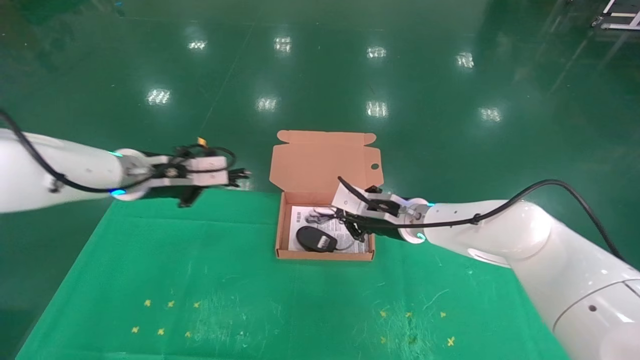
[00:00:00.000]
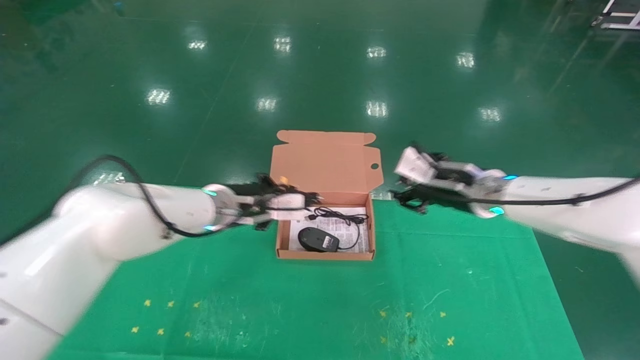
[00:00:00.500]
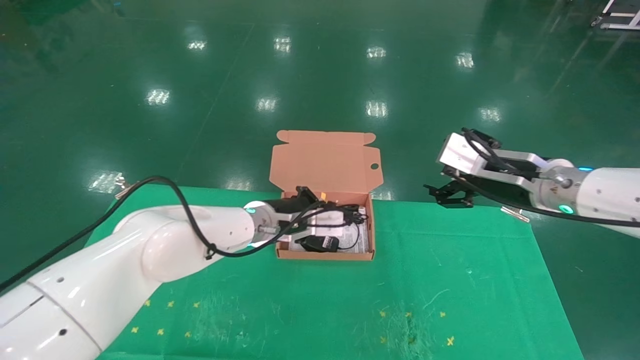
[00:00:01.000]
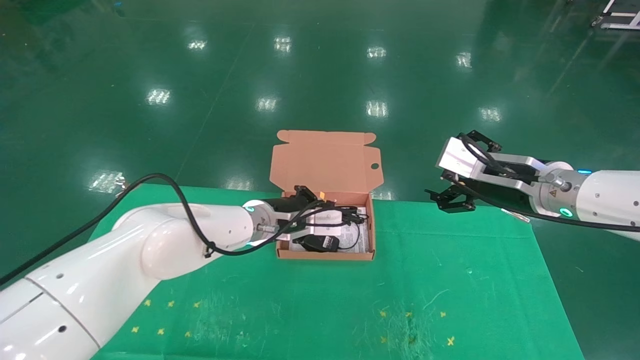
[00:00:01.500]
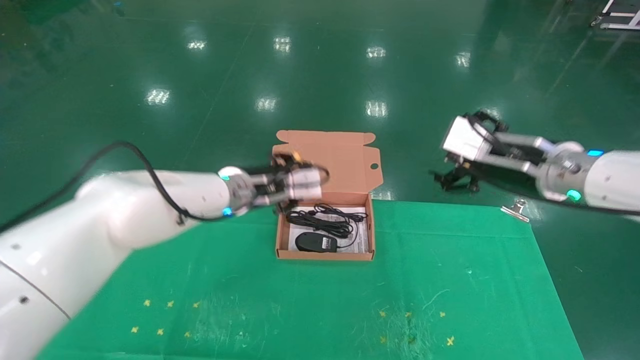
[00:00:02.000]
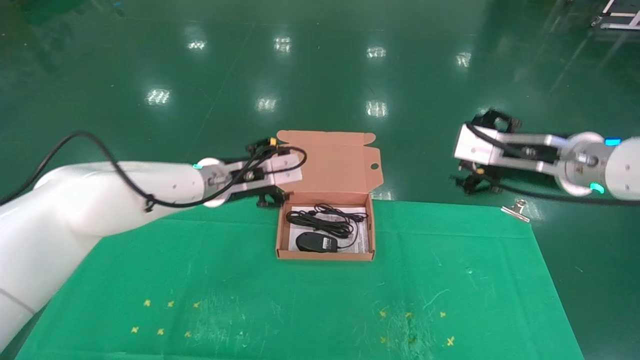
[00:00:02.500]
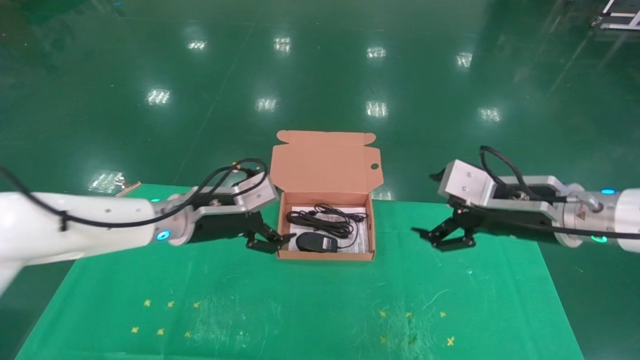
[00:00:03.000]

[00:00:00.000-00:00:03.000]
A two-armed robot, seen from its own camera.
Task of the whole recording: grasp data cable left put into box grasp mouse right put into box.
Step, 00:00:00.000 to 00:00:02.000: Place the mouse and power cord into the box.
00:00:00.000 to 00:00:01.500: The right gripper is displaced to the right, backward and upward by approximately 20 cm, and opens its fingers. The left gripper travels to the right and downward by approximately 20 cm.
00:00:01.500 to 00:00:03.000: The left gripper travels to the left and backward by about 10 cm, and opens. Meanwhile the right gripper ends up roughly 5 cm from where it was.

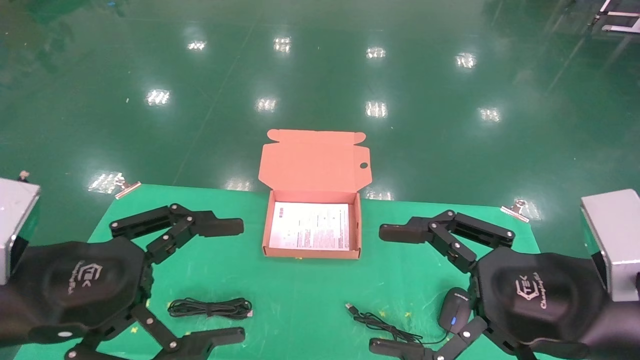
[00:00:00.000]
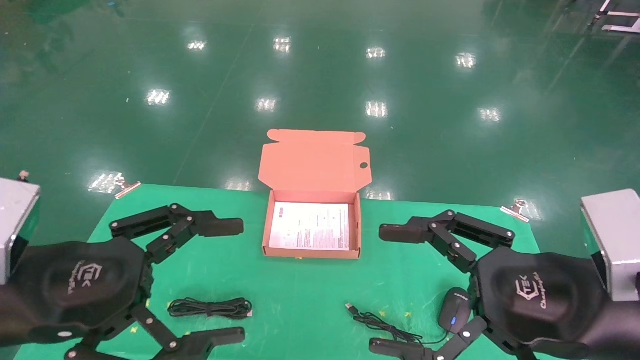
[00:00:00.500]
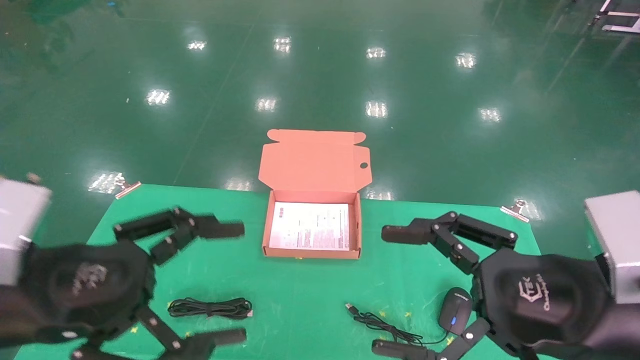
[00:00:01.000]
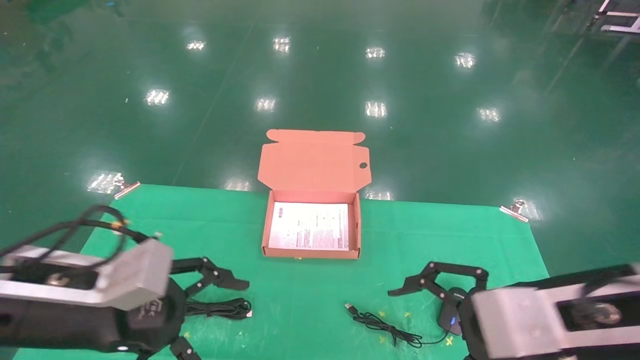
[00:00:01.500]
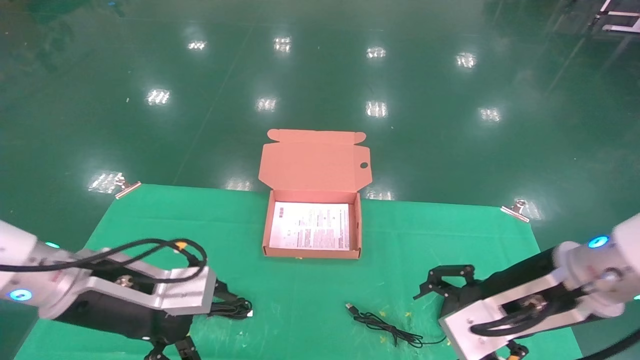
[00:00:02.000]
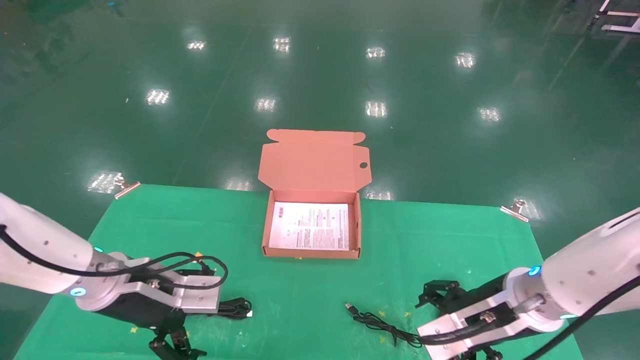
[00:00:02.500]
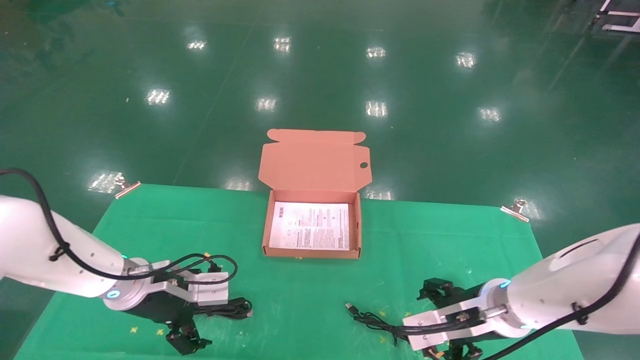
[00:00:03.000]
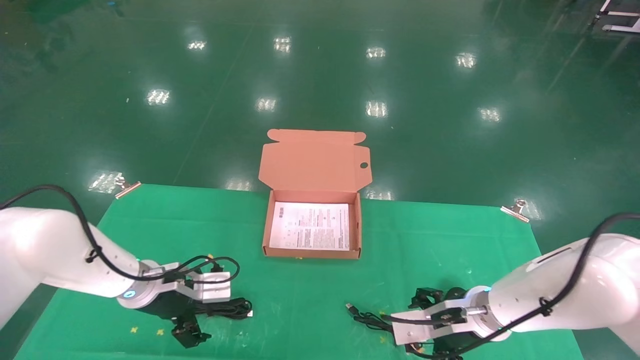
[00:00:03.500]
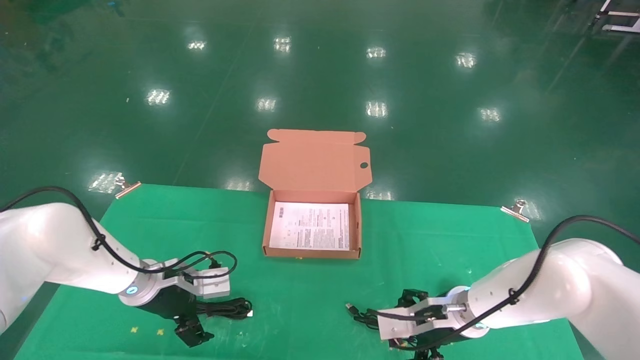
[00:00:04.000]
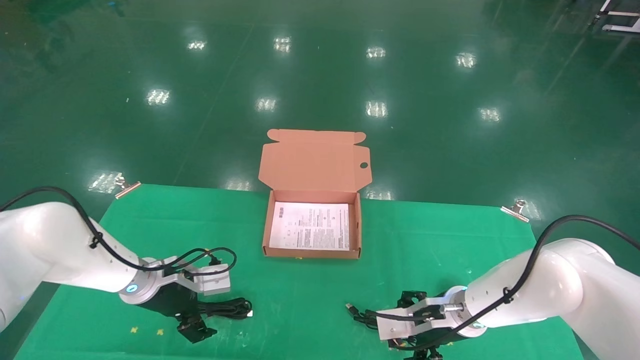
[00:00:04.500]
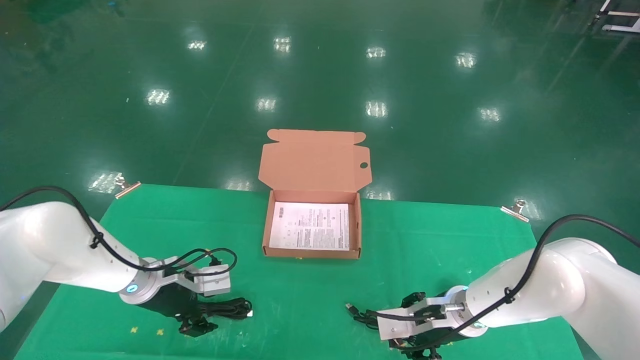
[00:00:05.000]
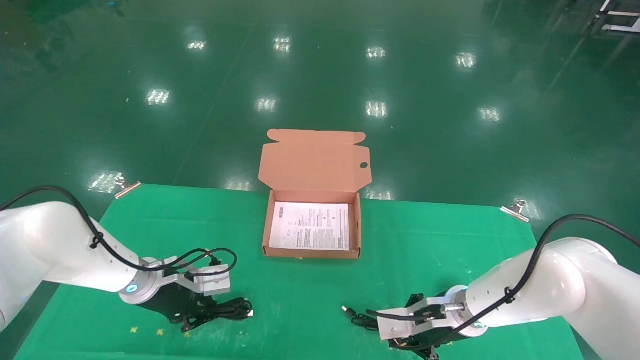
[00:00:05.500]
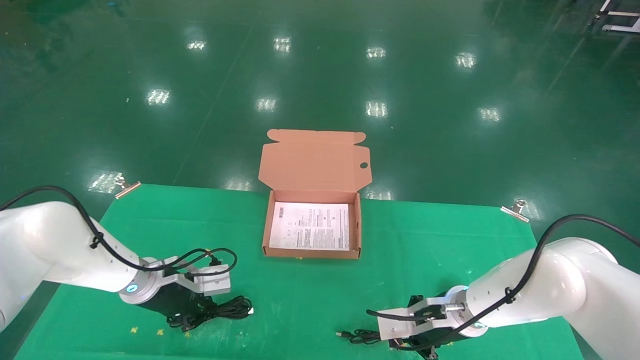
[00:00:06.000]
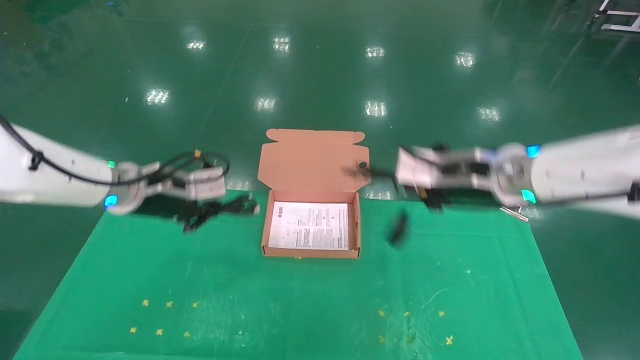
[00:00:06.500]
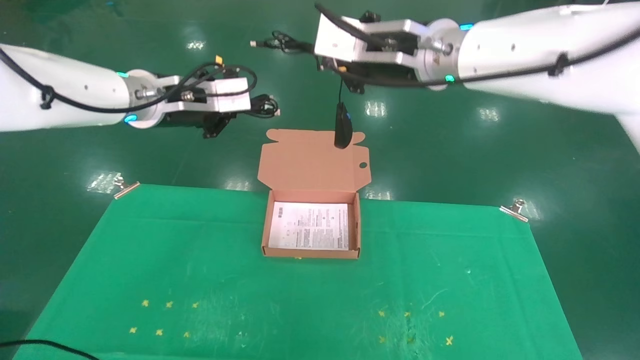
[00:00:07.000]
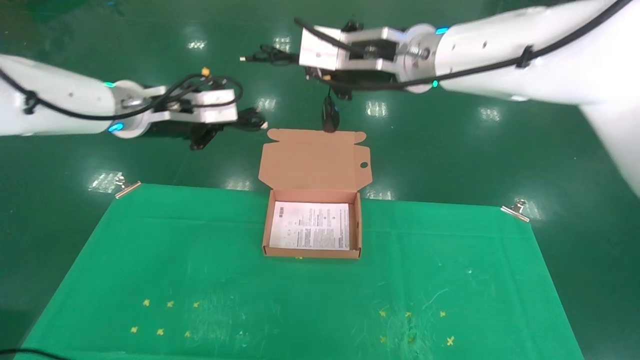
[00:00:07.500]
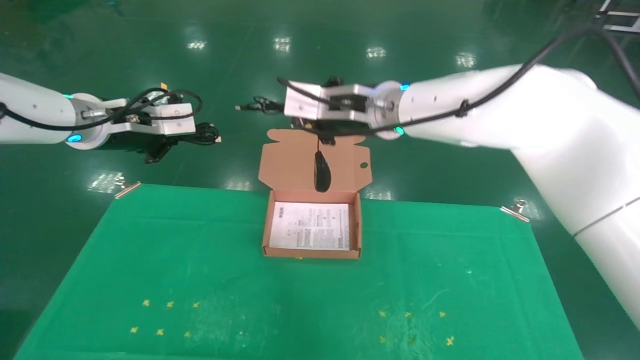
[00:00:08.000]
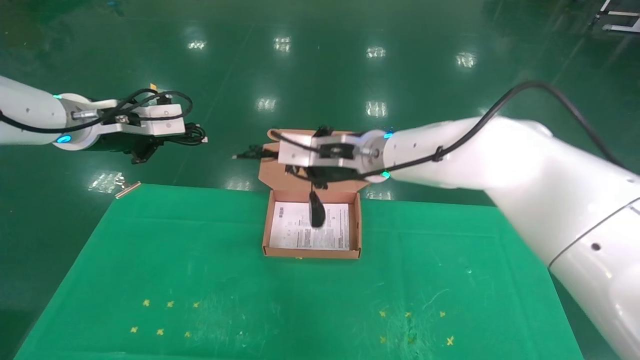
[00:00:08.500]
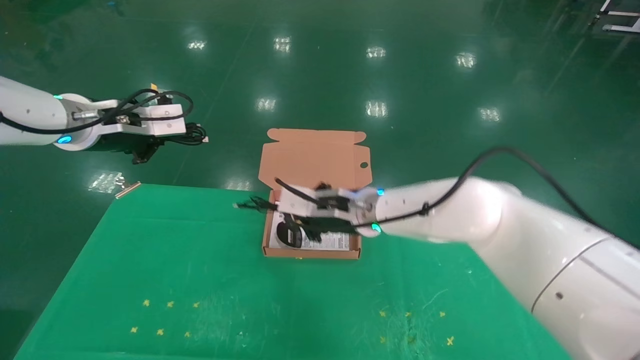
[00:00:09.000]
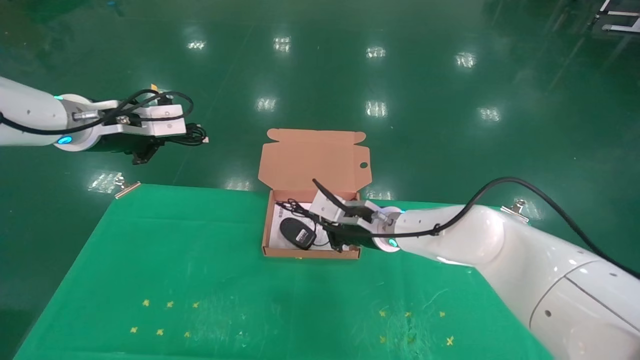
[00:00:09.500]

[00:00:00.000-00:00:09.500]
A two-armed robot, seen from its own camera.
Task of the whole recording: grasp data cable left put into box grasp mouse right put into box.
Step, 00:00:01.500 to 00:00:06.000: Grab and pick up both the mouse and power cord from the accessory packaging area at the same time.
00:00:00.000 to 00:00:02.000: The left gripper heads forward and downward, covering about 10 cm. Meanwhile the right gripper heads forward, covering some 10 cm.
00:00:02.000 to 00:00:04.000: The right gripper heads downward and forward, covering approximately 20 cm; the left gripper moves forward and downward, some 15 cm.
00:00:04.000 to 00:00:05.500: The left gripper closes up, while the right gripper closes its fingers.
00:00:05.500 to 00:00:07.500: The grippers both shift upward by some 30 cm.
00:00:07.500 to 00:00:09.500: The left gripper moves to the left, about 5 cm. The right gripper moves downward, some 25 cm.

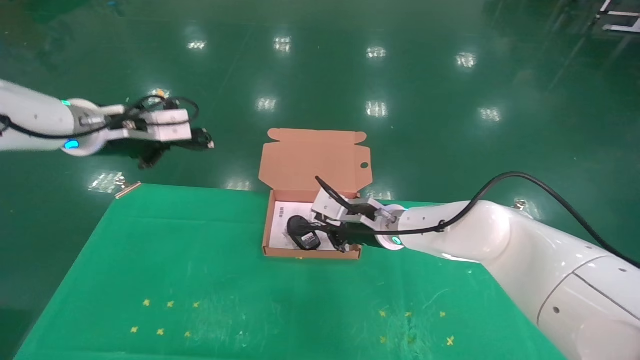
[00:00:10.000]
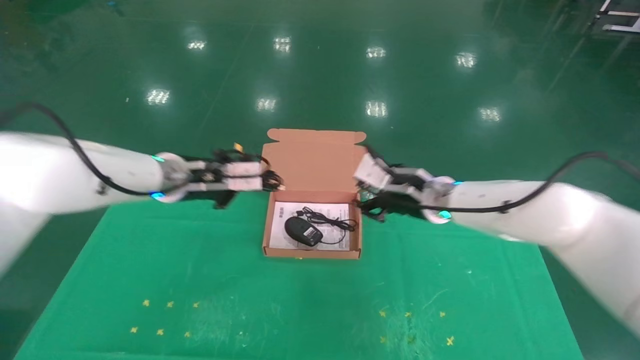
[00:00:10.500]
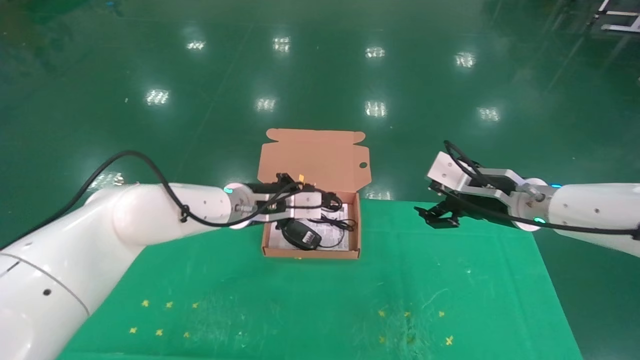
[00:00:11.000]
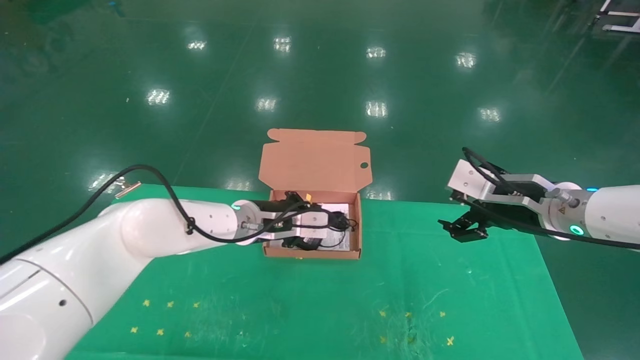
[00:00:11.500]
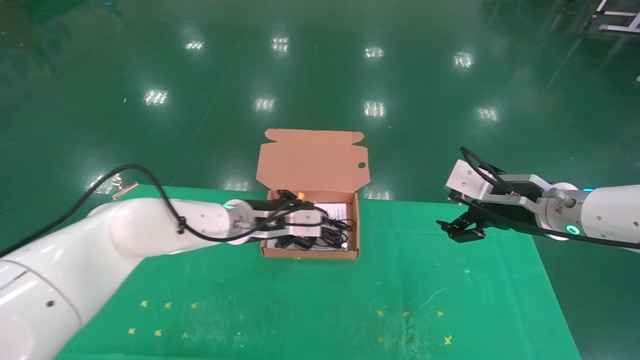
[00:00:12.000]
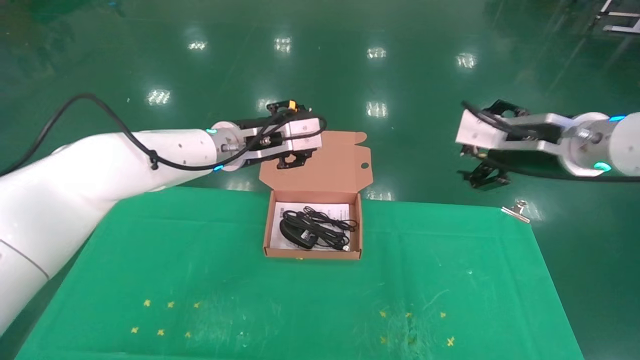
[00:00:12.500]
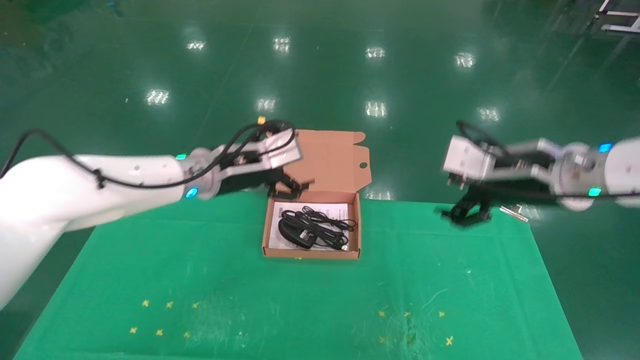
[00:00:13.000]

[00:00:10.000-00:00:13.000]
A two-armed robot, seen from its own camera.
Task of the whole recording: grasp data cable left put into box grasp mouse right put into box.
00:00:10.000 to 00:00:11.500: The right gripper shifts approximately 20 cm to the right and backward, and opens up, while the left gripper shifts some 25 cm to the right and downward.
00:00:11.500 to 00:00:13.000: The left gripper goes roughly 10 cm upward and to the left, and opens up.
